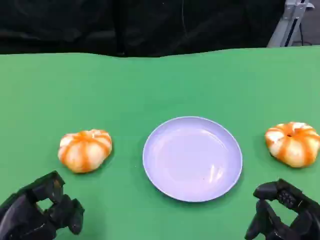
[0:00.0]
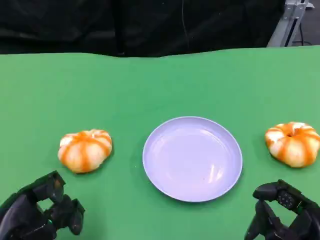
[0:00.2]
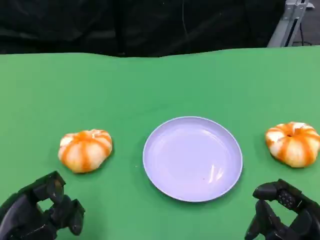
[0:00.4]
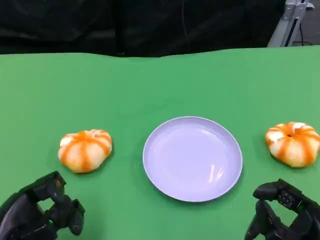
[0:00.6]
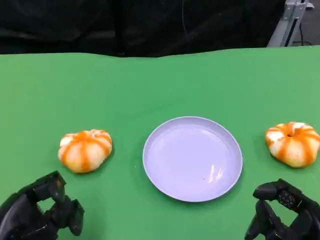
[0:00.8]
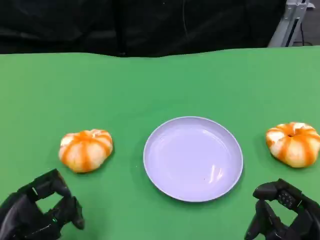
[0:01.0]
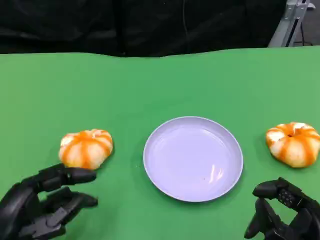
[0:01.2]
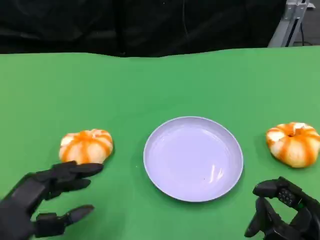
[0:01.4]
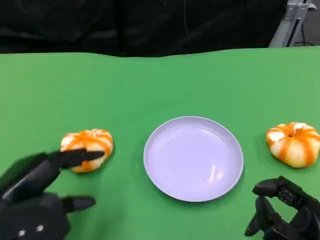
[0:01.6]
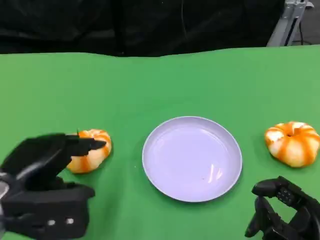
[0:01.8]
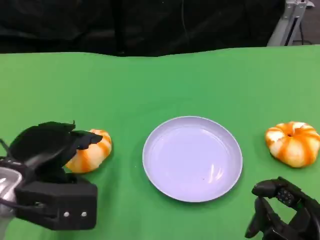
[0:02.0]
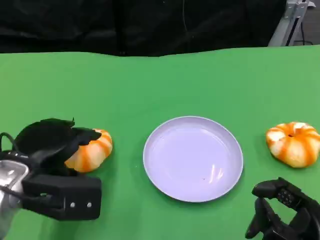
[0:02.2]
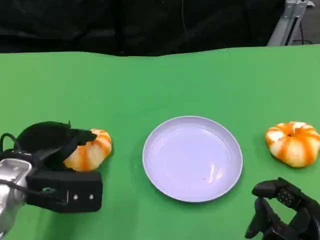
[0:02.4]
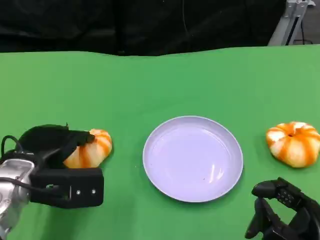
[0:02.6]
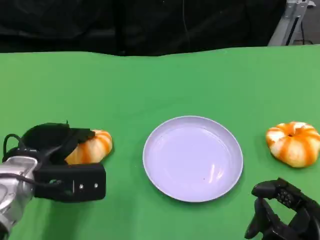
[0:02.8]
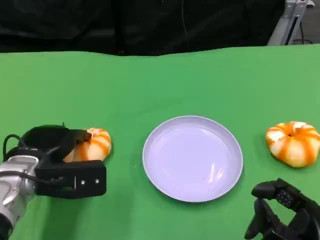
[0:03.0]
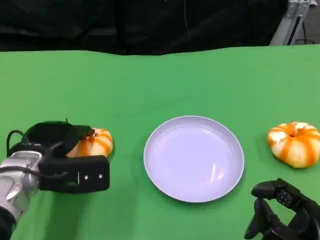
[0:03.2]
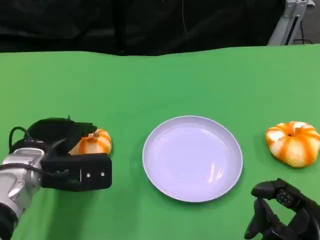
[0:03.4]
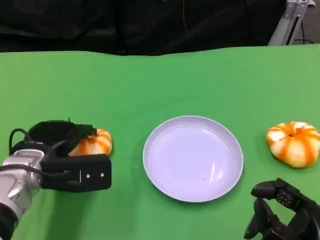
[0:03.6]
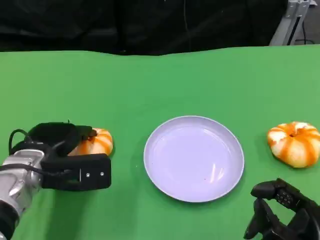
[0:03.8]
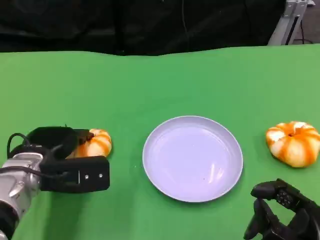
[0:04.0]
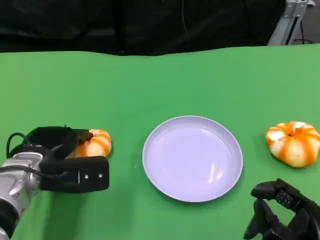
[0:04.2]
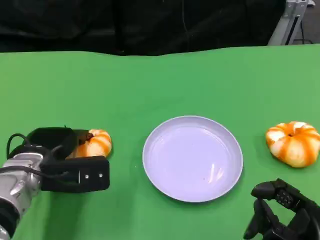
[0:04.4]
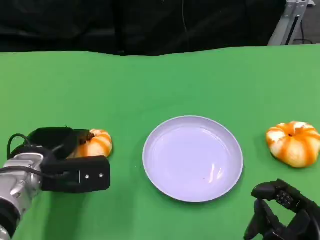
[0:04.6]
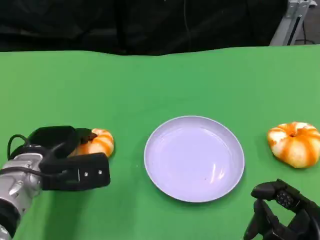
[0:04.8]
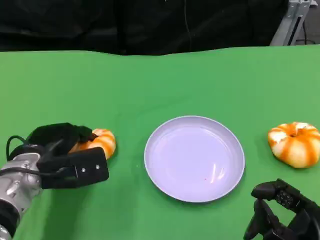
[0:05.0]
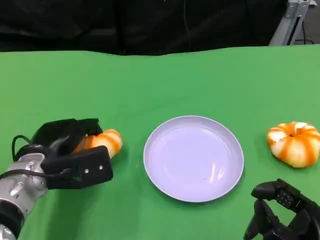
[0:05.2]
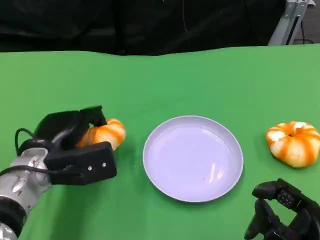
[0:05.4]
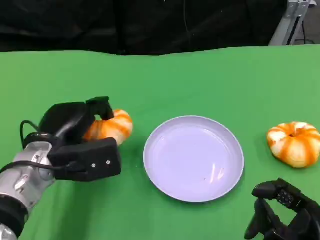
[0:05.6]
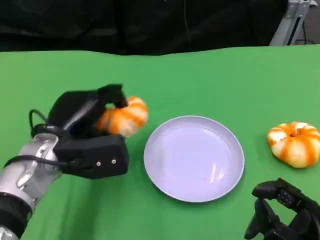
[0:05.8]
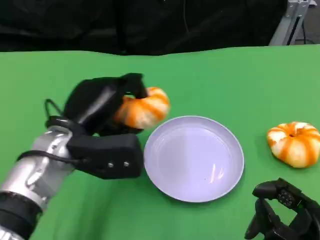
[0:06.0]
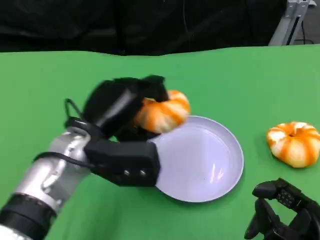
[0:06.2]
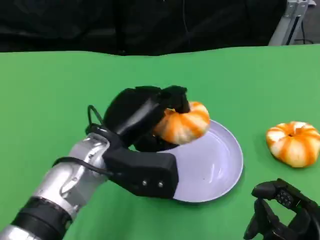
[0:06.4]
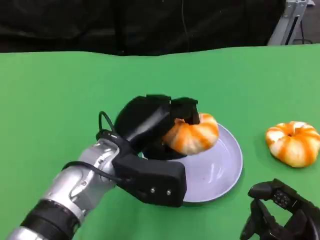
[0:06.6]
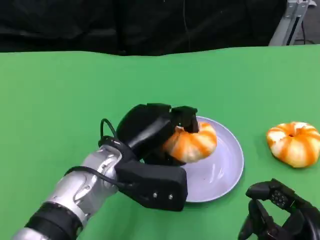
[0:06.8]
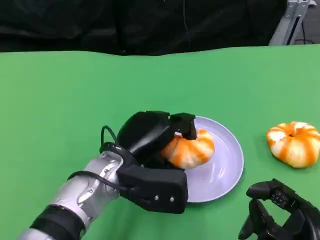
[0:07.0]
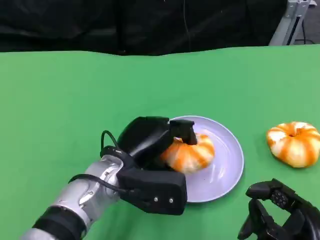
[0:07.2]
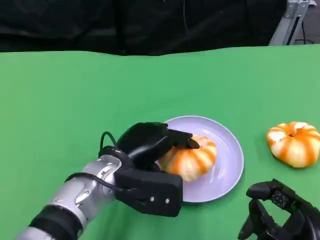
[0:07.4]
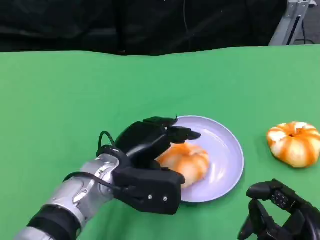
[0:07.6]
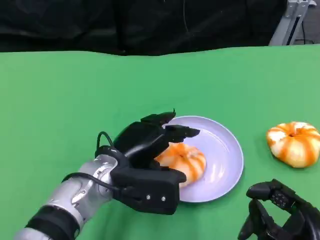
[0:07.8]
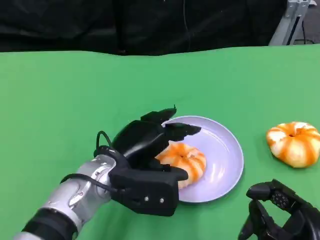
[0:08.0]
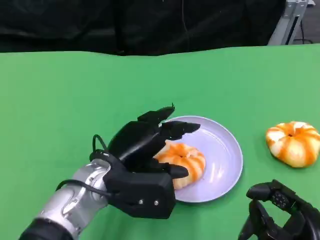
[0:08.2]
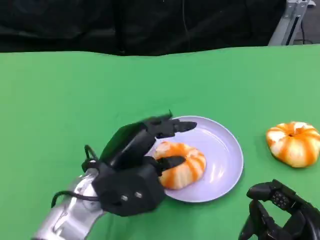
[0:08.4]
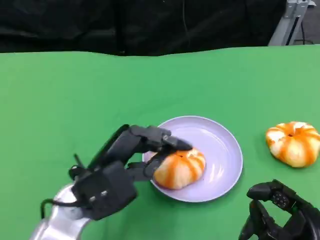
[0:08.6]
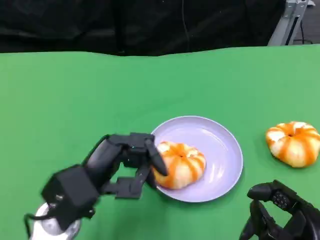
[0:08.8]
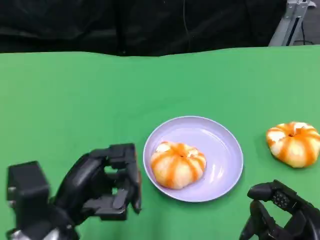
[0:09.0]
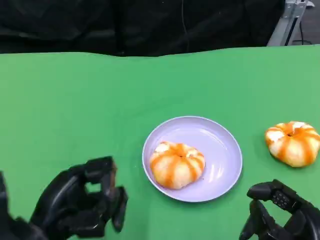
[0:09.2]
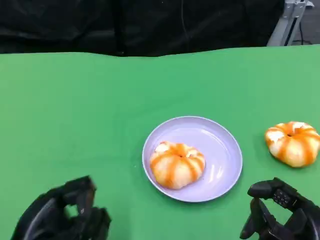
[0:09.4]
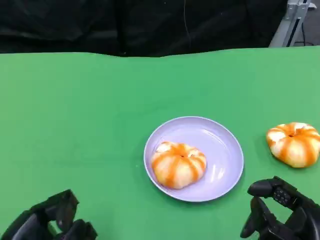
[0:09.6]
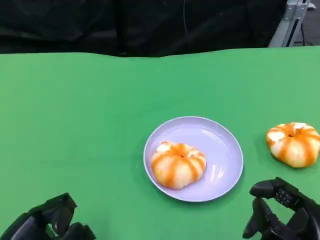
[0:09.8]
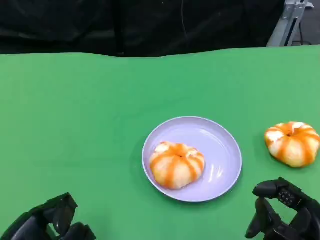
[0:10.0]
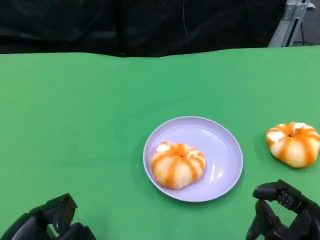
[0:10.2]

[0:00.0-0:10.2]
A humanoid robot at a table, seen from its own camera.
Task of the whole recording: Grasp the bread from the table and place it into the plate.
1.4 to 3.0 s: The left hand travels forward by about 10 cm.
3.0 to 4.4 s: Both hands stay put.
4.4 to 5.8 s: The left hand moves approximately 5 cm.
5.8 to 7.2 s: The left hand moves to the right, about 10 cm.
7.2 to 8.8 s: The left hand travels to the left and backward by roughly 10 cm.
8.8 to 10.2 s: The left hand heads to the left and backward, covering approximately 10 cm.

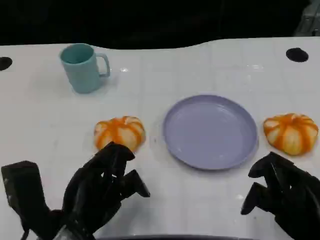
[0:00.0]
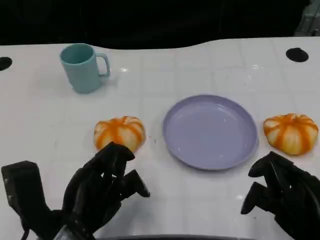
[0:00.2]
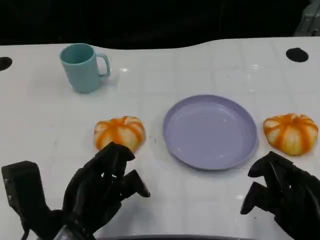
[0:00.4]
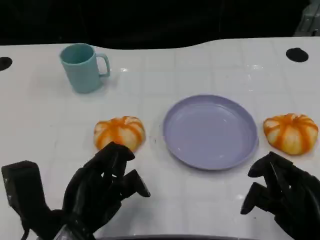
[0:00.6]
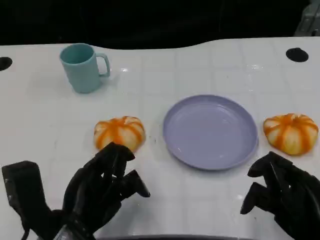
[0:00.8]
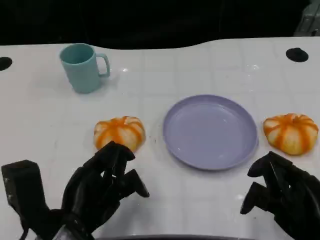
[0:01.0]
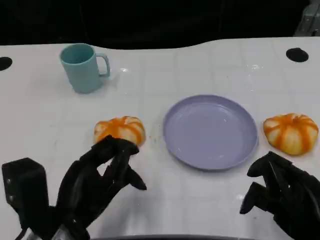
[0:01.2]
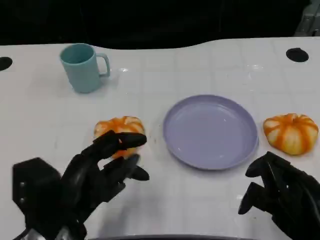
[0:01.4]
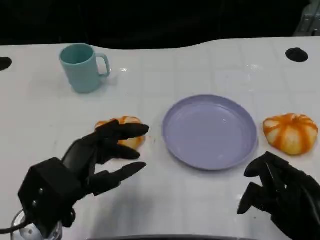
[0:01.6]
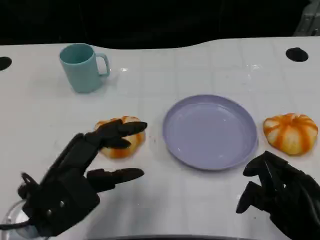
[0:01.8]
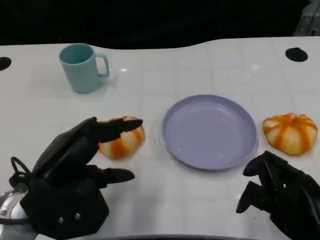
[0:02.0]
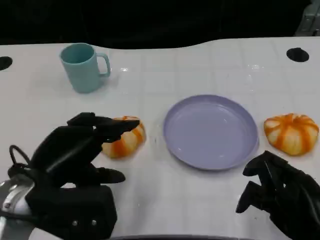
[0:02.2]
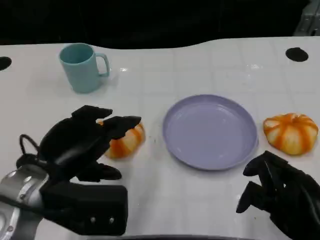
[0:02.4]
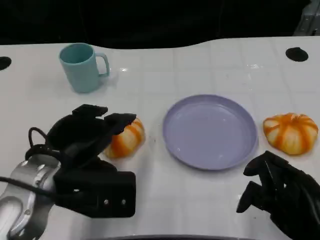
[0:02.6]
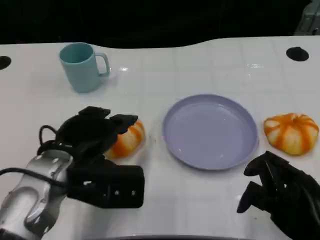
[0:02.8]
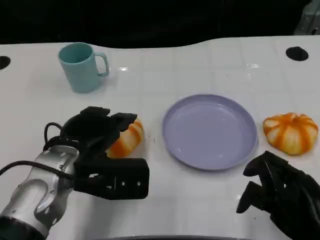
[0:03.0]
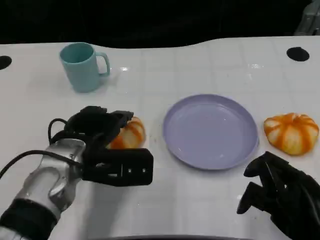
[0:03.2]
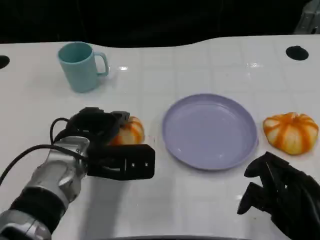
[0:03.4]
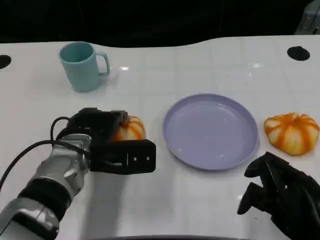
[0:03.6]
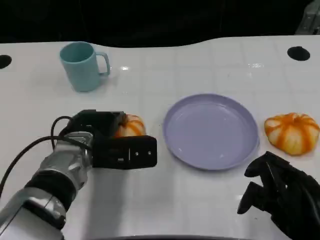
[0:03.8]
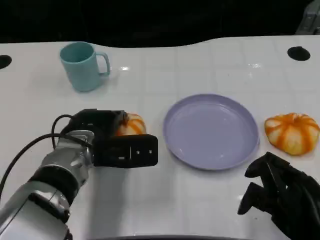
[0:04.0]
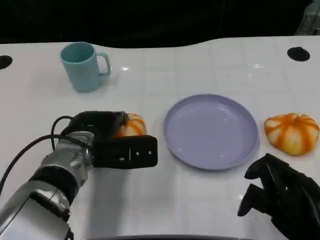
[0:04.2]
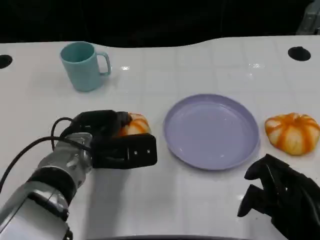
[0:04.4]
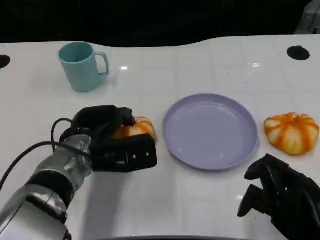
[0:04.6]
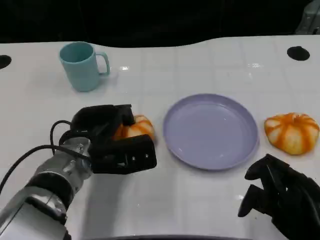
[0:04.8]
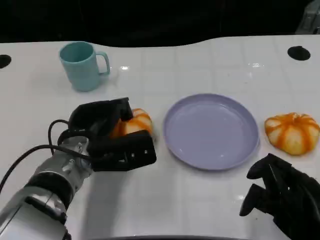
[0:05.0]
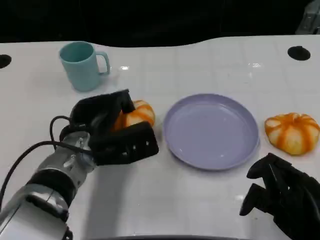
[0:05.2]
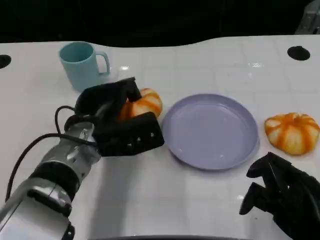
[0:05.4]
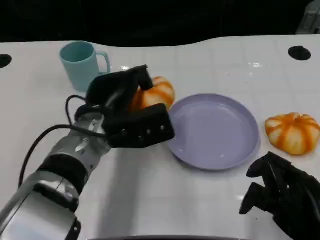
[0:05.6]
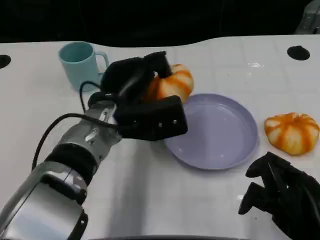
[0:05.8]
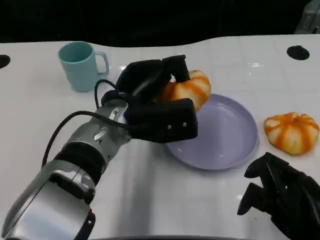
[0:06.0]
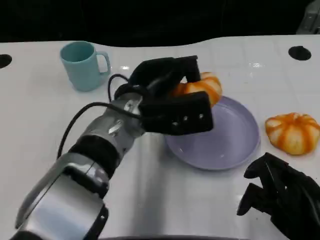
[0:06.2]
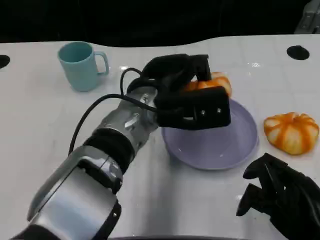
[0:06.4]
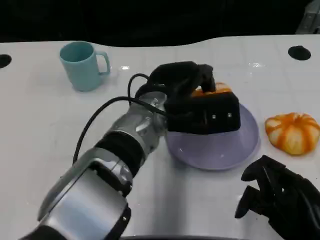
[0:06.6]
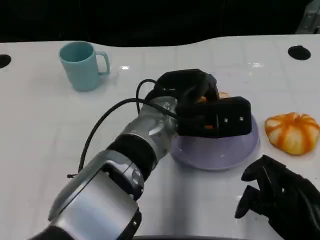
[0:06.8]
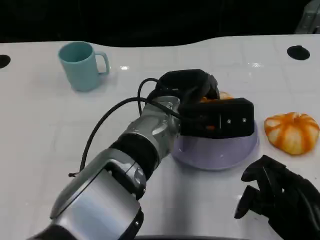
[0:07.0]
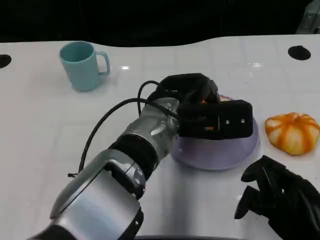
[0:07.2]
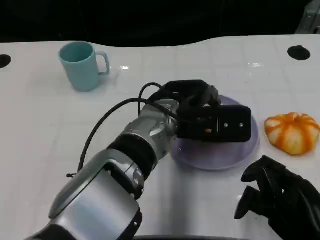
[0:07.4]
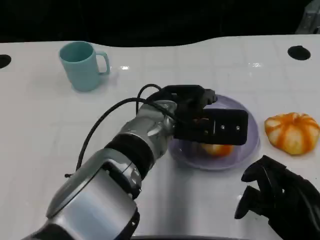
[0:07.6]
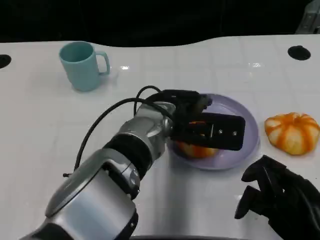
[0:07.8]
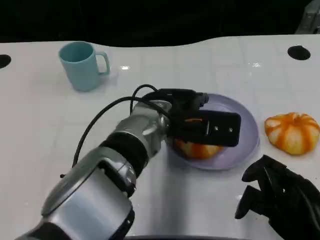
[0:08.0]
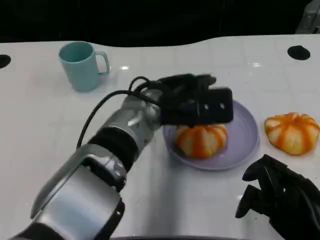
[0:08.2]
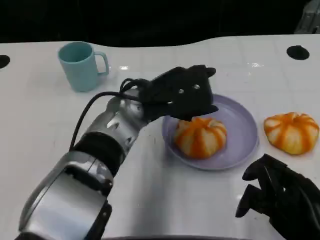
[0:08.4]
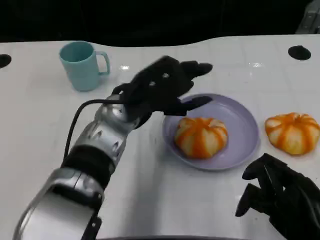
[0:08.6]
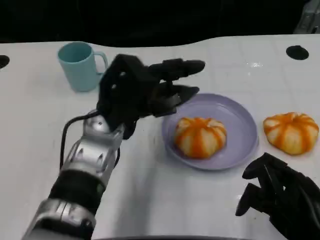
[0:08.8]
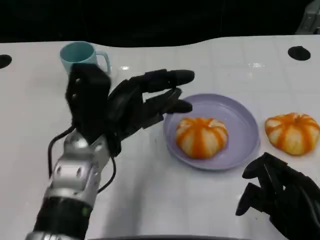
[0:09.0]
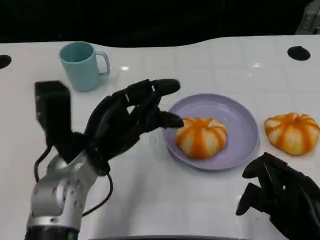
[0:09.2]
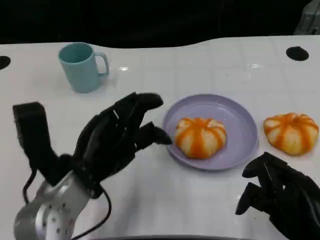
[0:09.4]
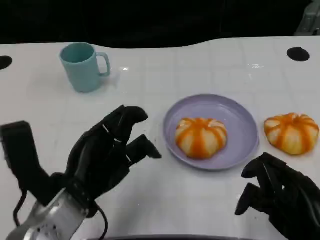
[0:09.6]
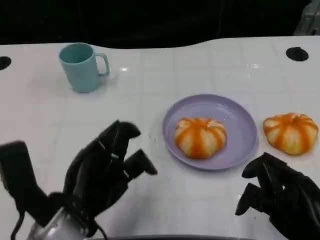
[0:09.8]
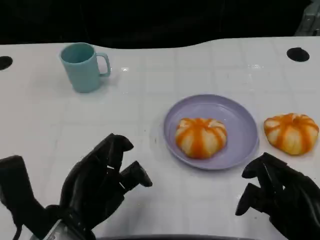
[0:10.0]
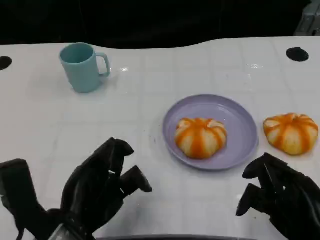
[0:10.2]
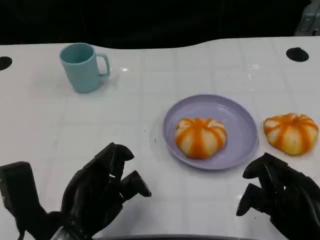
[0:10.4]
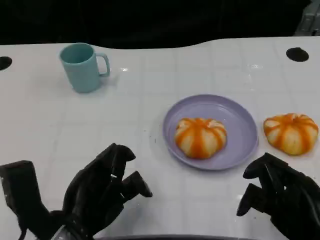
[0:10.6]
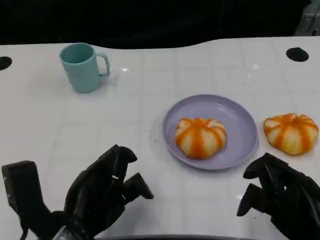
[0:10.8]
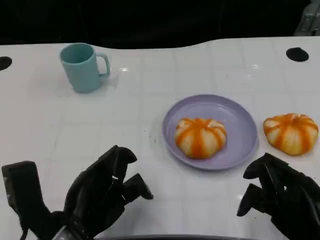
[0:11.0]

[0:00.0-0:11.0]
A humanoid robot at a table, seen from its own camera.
Task of the whole recording: Grasp the bread from the table and place it into the plate.
1.6 to 3.2 s: The left hand shifts some 10 cm forward.
3.2 to 4.8 s: The hands stay close to where they were, moving slightly.
4.8 to 6.2 s: The left hand heads to the right and upward, covering approximately 10 cm.
7.8 to 9.4 s: The left hand heads to the left and backward, covering roughly 15 cm.
9.4 to 11.0 s: The left hand shifts about 5 cm backward.

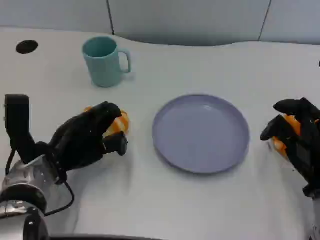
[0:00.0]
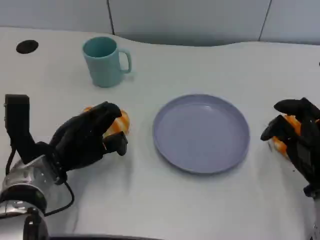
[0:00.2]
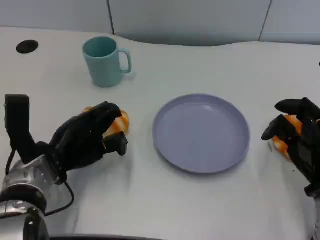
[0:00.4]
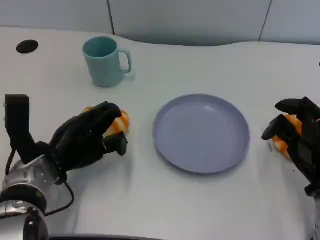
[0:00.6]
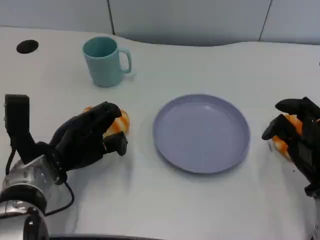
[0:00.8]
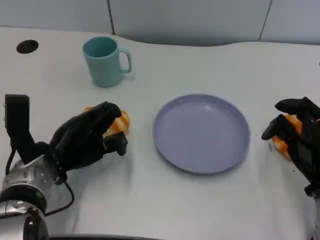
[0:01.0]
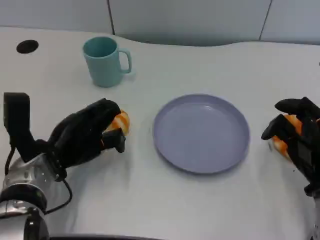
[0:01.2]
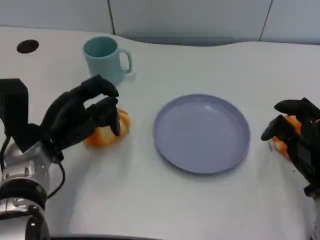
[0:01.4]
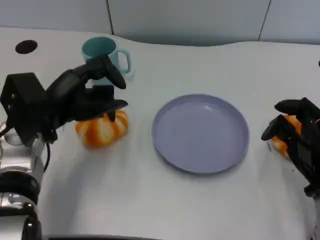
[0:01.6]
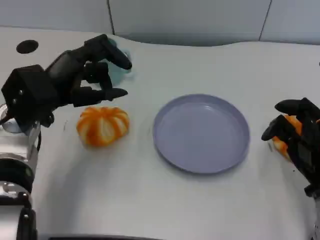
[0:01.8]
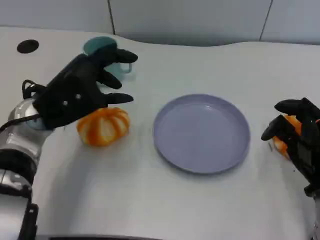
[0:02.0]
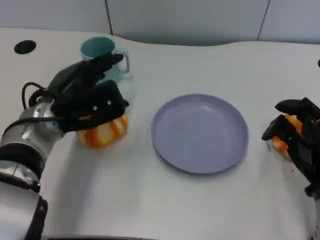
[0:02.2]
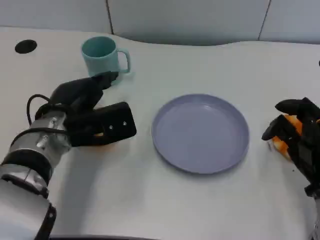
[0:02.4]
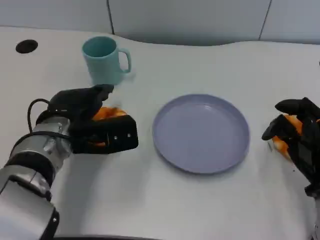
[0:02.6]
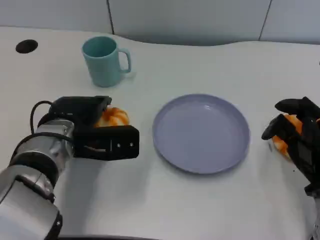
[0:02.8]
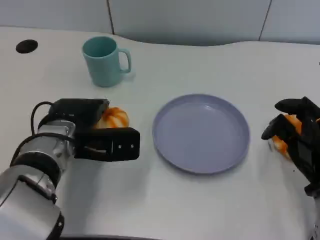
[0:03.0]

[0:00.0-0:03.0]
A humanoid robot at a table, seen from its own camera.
Task of the whole recording: Grasp the bread from the table and place it into the plate.
0.0 to 1.6 s: The left hand goes approximately 5 cm upward.
1.6 to 3.0 s: The left hand changes place by some 5 cm.
